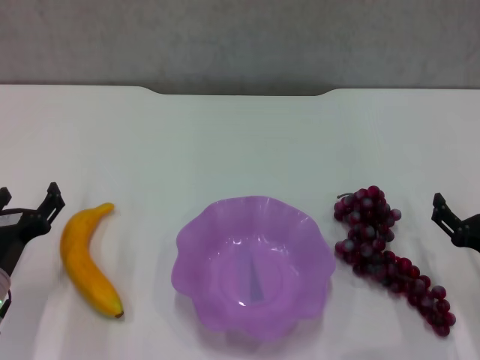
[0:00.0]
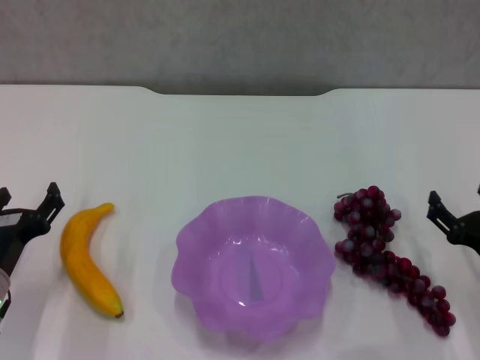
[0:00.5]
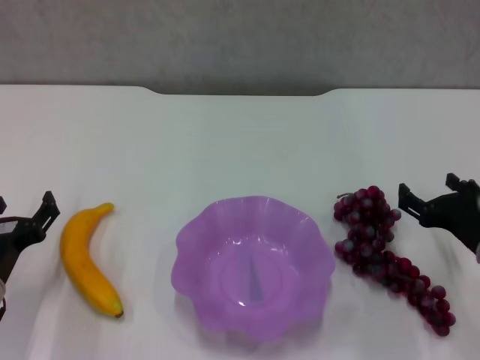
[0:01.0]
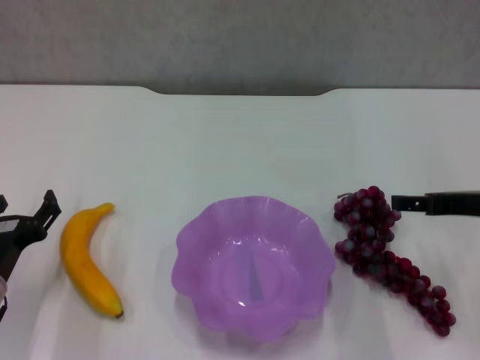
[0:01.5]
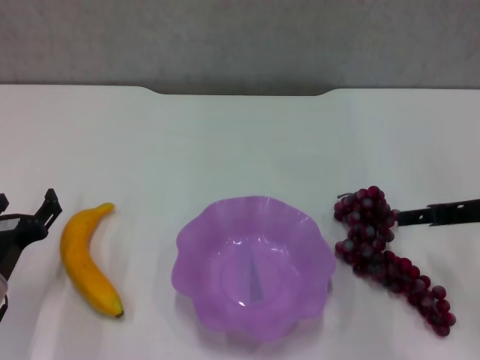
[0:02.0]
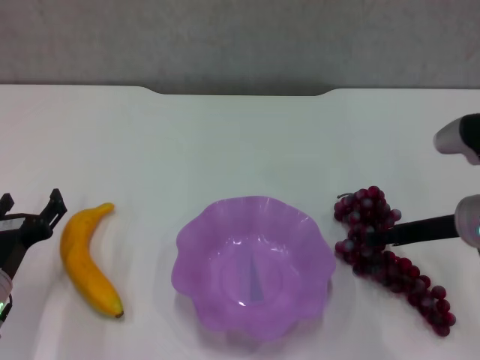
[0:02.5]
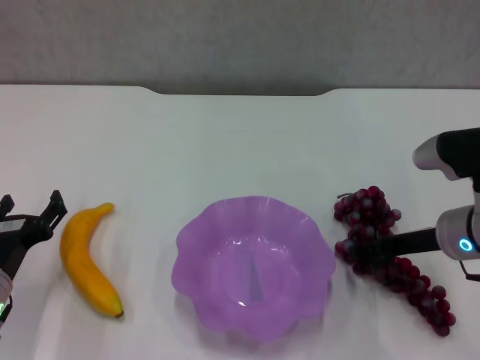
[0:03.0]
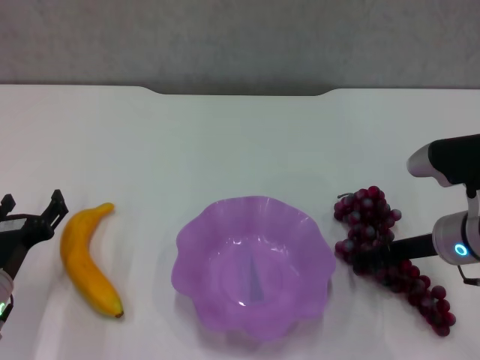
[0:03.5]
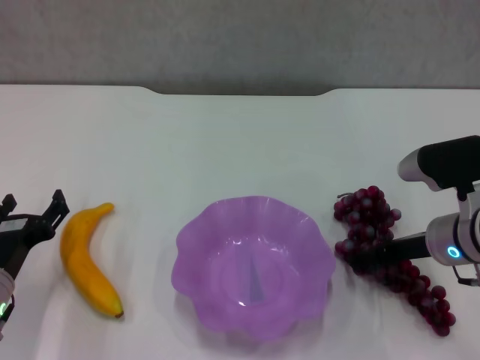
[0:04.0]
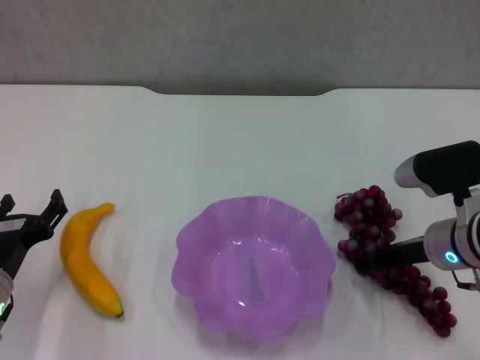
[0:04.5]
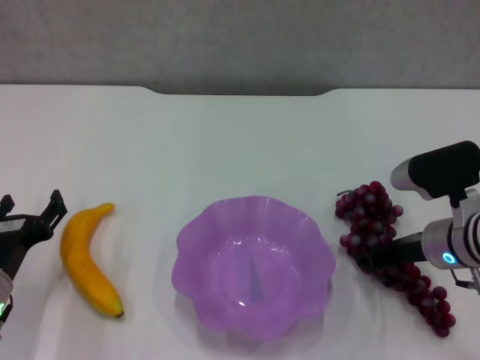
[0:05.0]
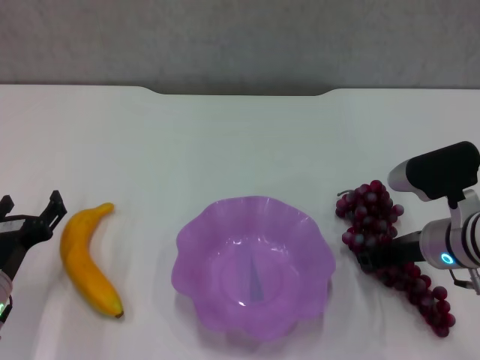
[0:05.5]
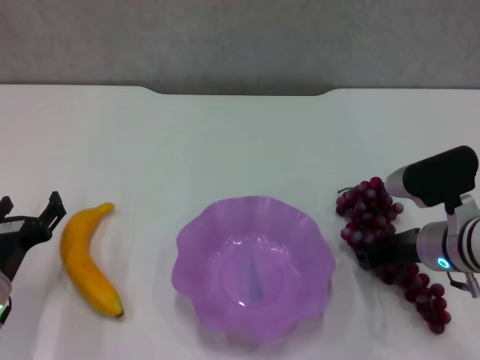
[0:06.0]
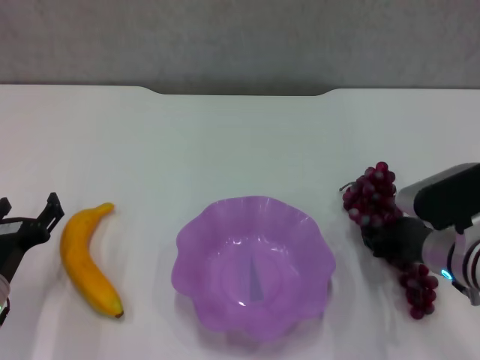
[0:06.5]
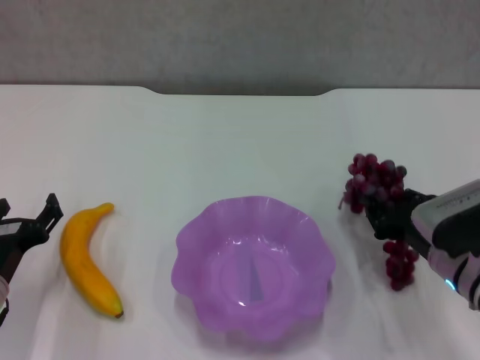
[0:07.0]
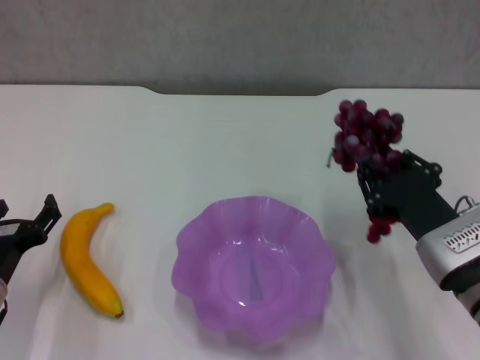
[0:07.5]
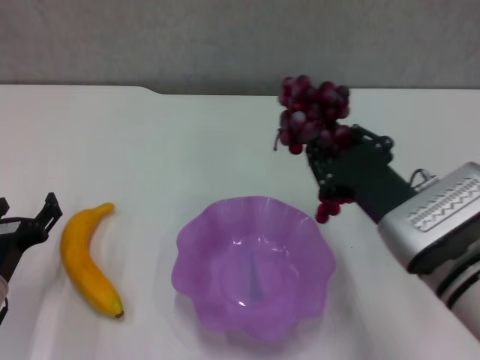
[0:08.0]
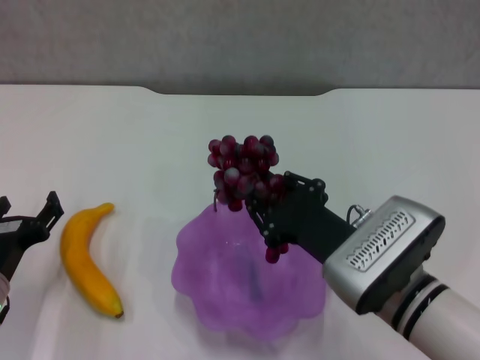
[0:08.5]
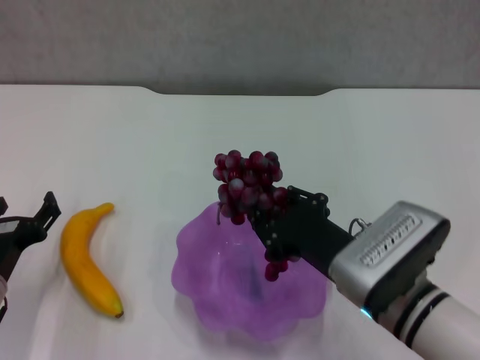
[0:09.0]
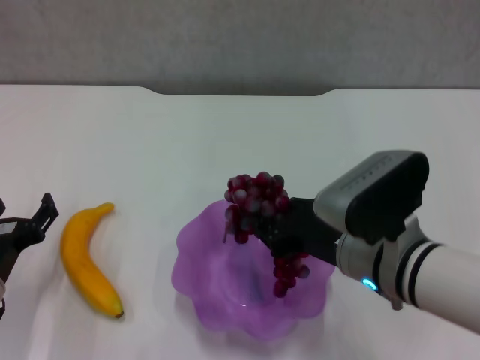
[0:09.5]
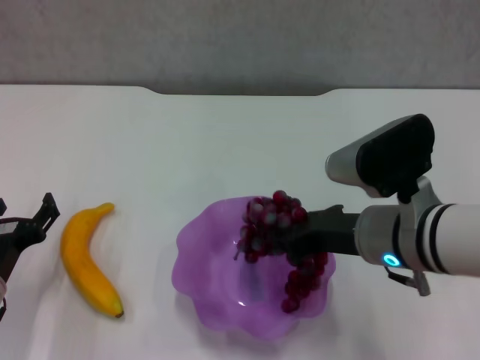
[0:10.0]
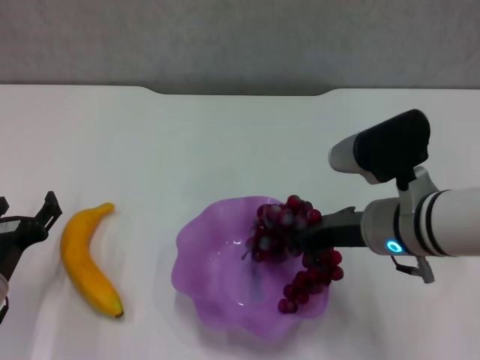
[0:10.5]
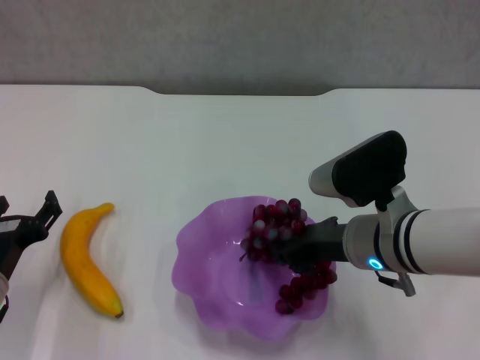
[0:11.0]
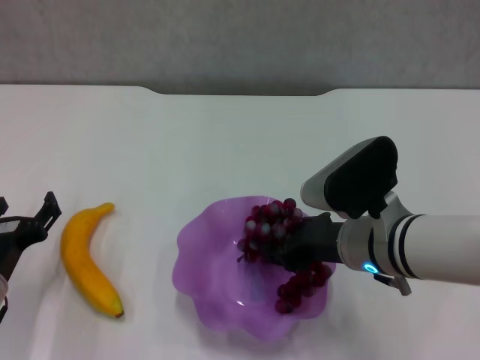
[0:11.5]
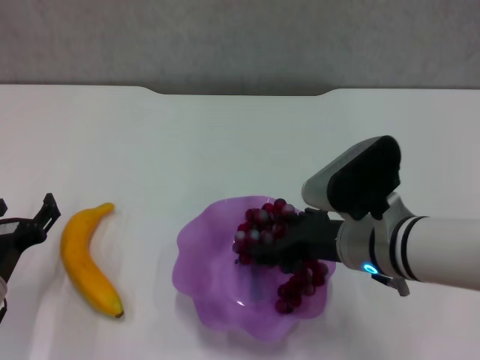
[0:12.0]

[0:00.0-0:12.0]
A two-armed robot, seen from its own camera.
Step, 0:00.0 to 0:04.5: Grasp the grape with right gripper.
0:00.0 to 0:02.0: The right gripper is displaced upward and forward by some 15 cm.
0:02.0 to 0:04.0: The right gripper shifts approximately 10 cm downward and to the left.
0:04.0 to 0:06.0: The right gripper closes.
0:06.0 to 0:08.0: The right gripper moves backward and to the left, about 10 cm.
0:10.0 to 0:12.0: The right gripper opens its fingers.

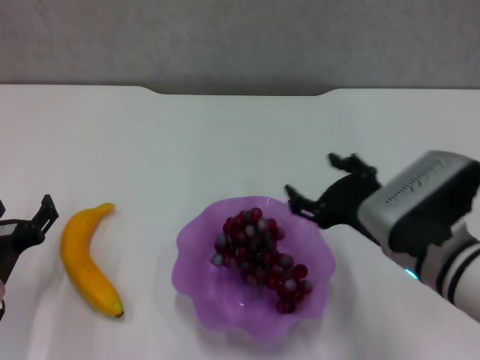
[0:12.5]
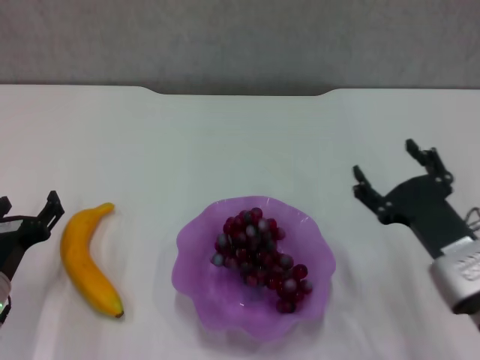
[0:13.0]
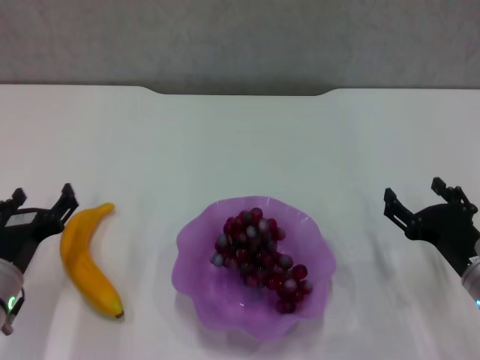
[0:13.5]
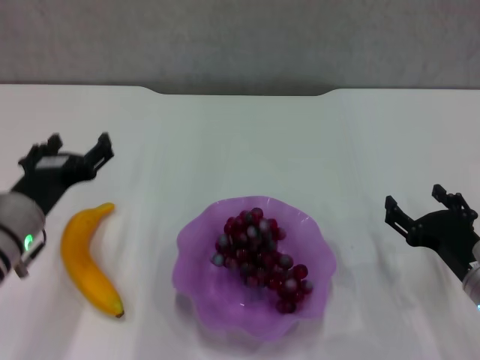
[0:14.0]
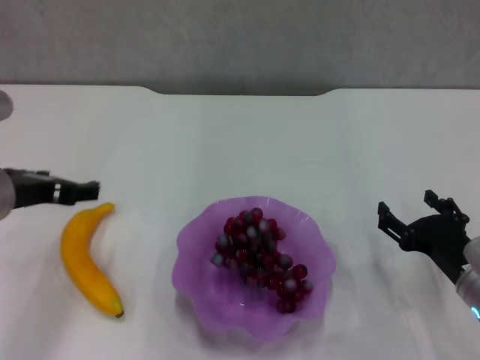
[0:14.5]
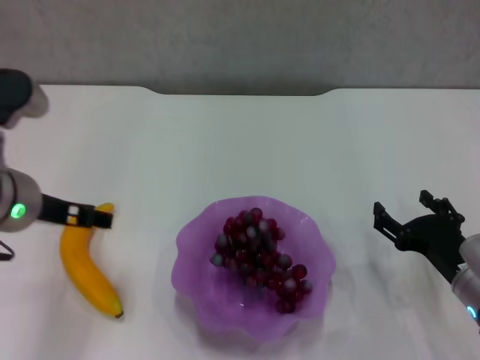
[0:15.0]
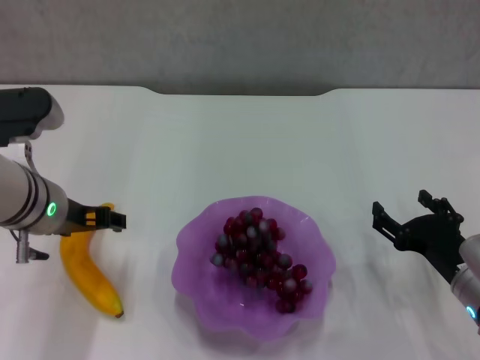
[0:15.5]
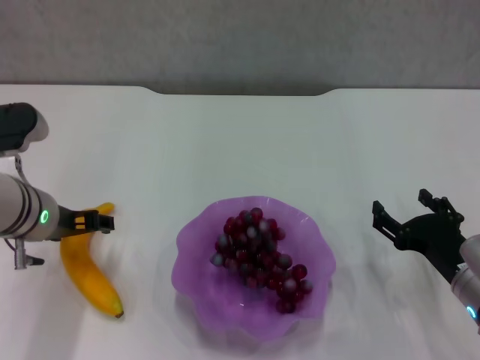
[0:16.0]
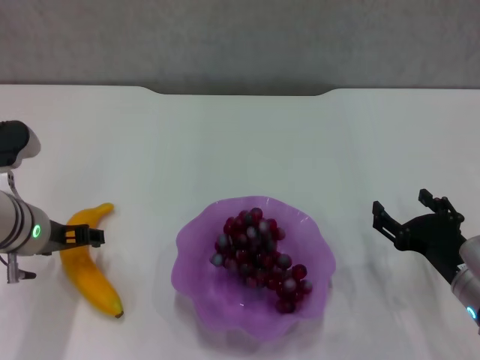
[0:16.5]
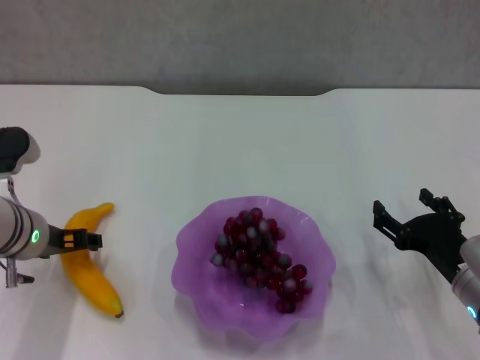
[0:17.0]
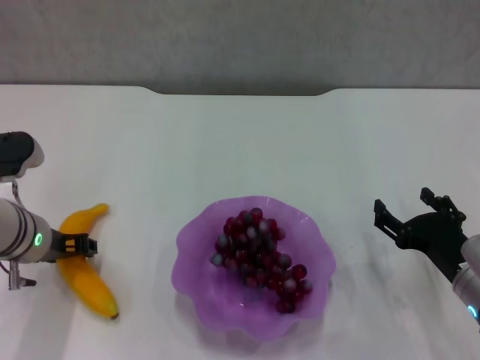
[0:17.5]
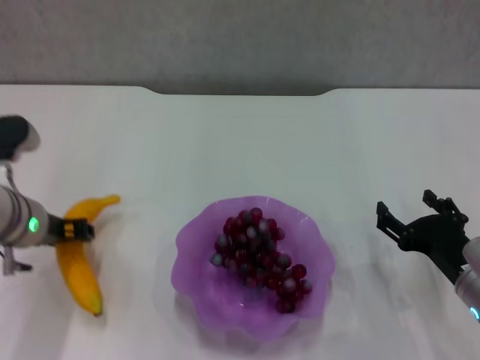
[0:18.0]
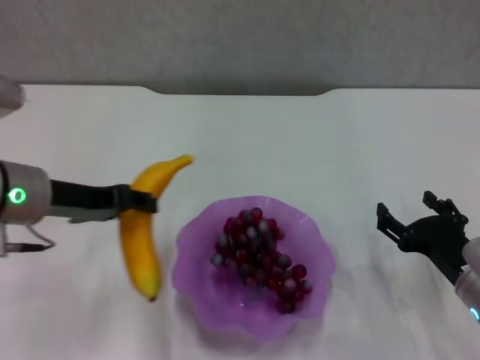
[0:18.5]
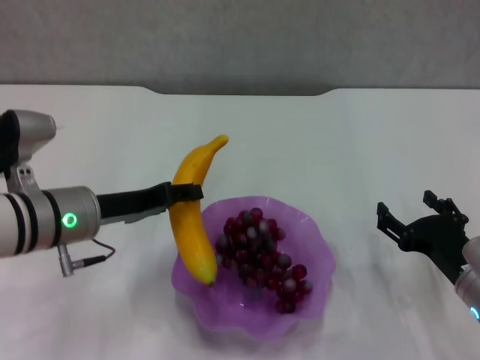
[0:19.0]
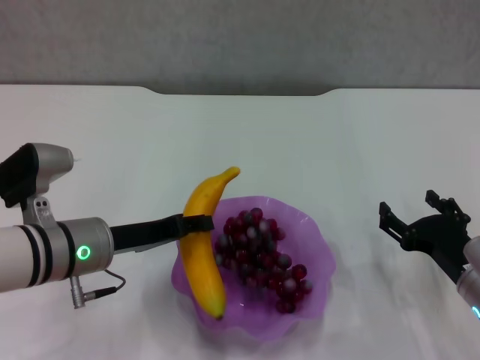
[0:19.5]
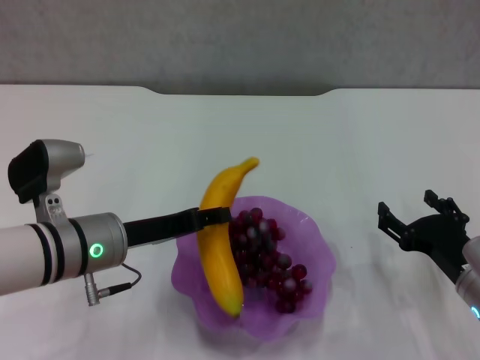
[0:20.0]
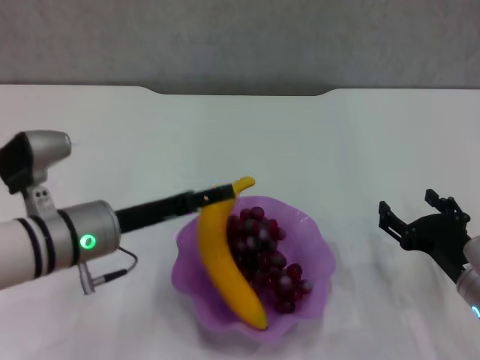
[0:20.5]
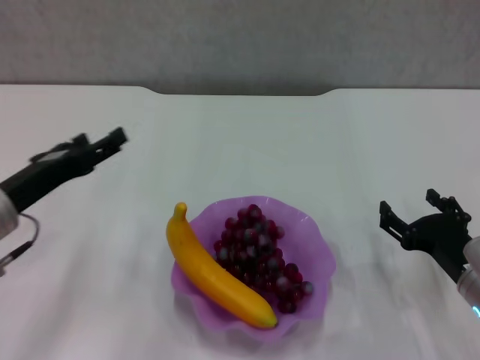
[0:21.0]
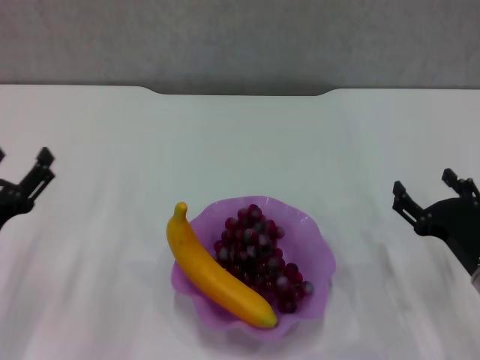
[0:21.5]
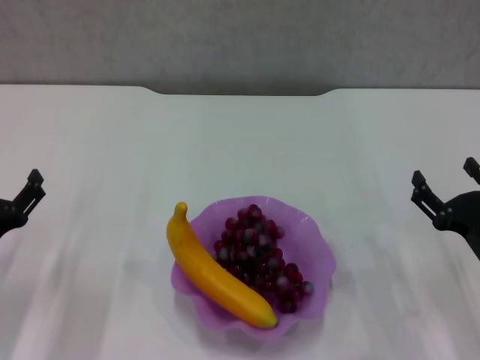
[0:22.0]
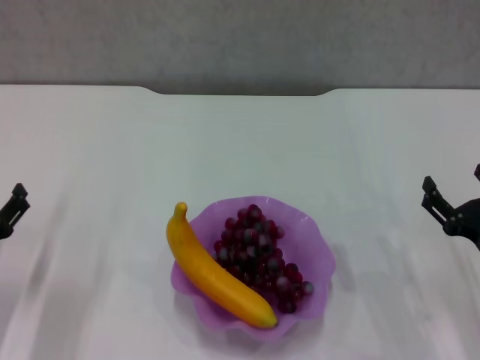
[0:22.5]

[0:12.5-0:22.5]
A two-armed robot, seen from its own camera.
Step, 0:12.5 to 0:17.5: Grasp the banana with left gripper.
Step, 0:18.0 to 0:20.5: Place the banana in the purple plate with left gripper.
0:12.5 to 0:14.5: The left gripper is displaced upward by approximately 15 cm. Meanwhile the right gripper travels downward and to the right by about 15 cm.
0:14.5 to 0:16.5: The left gripper heads downward, covering about 5 cm.
0:16.5 to 0:18.5: The left gripper moves upward, about 5 cm, and closes.
0:18.5 to 0:20.5: The left gripper heads downward and to the right, covering roughly 10 cm, and opens.
0:20.5 to 0:22.5: The left gripper travels to the left, downward and backward by roughly 15 cm.

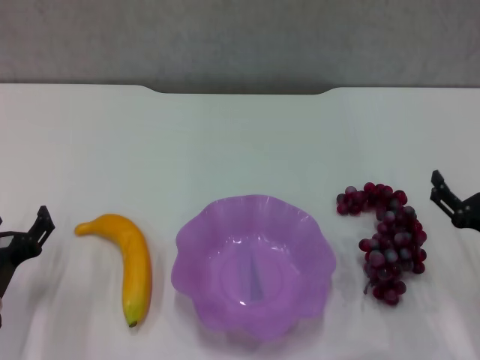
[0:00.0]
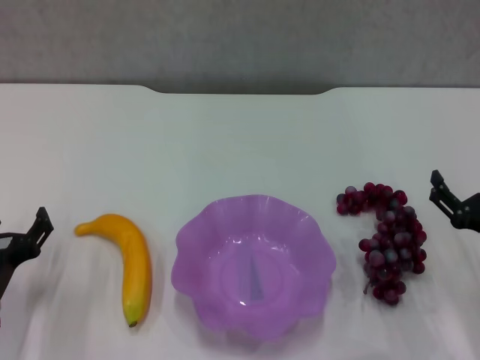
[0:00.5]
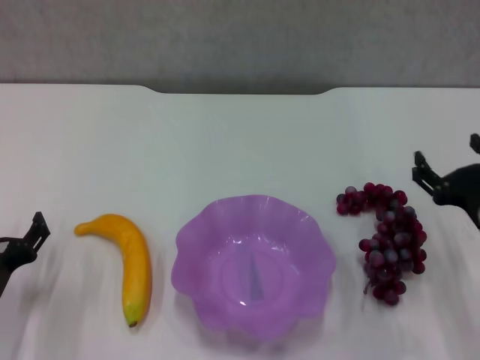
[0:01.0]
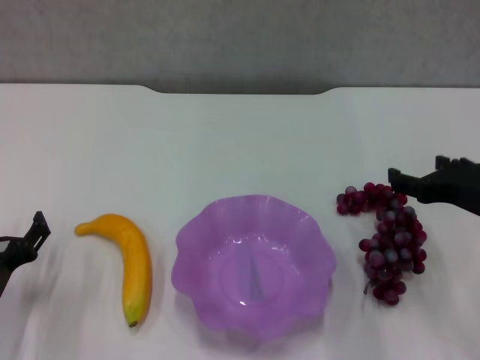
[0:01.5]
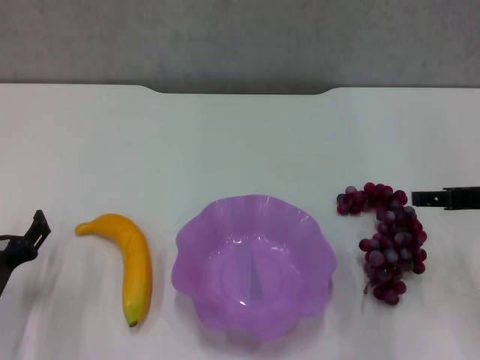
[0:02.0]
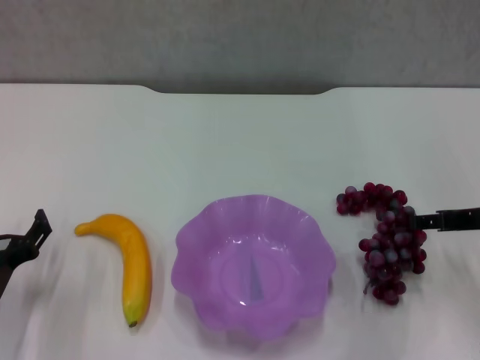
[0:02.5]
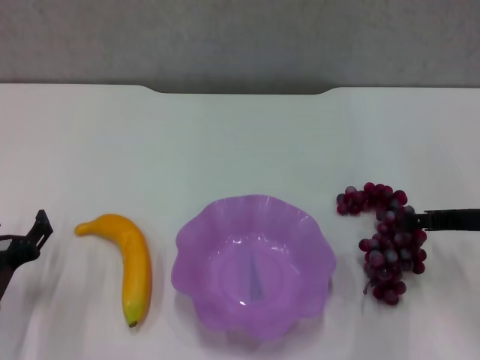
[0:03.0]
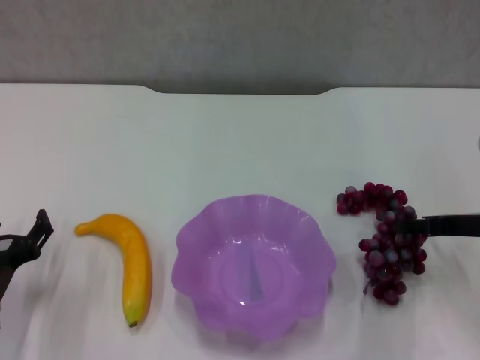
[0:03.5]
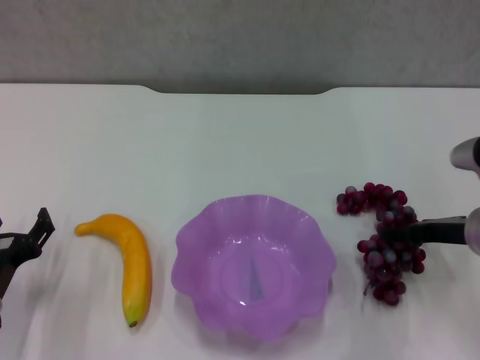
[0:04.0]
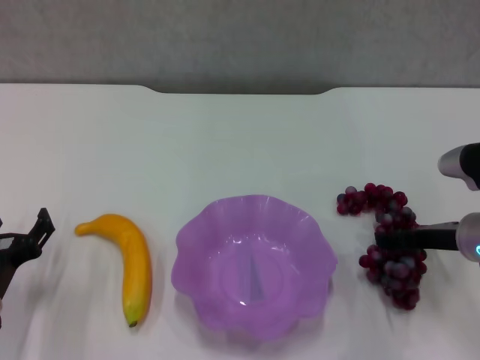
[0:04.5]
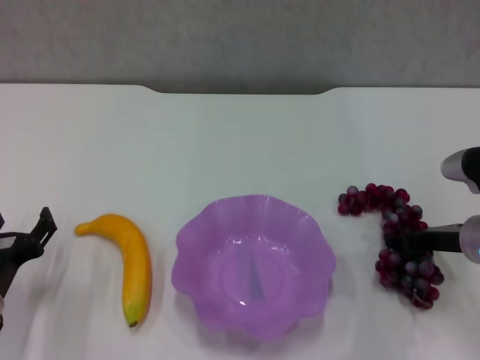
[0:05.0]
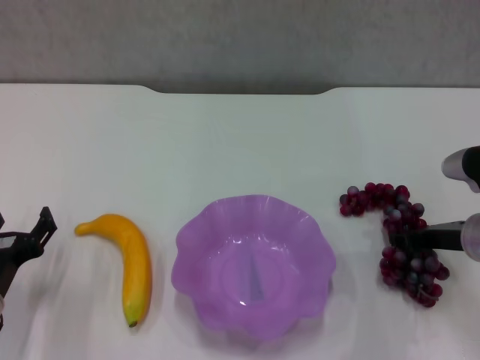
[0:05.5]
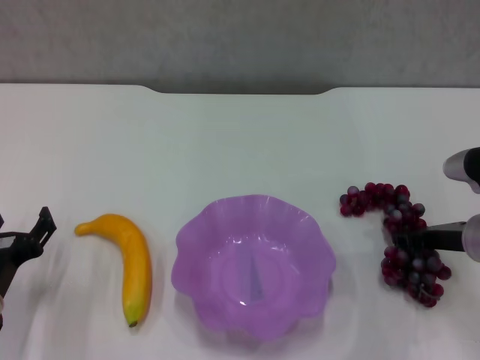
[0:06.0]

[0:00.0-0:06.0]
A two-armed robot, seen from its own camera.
Step, 0:00.0 to 0:04.5: Grasp the grape with right gripper.
0:00.0 to 0:02.0: The right gripper travels upward and forward by about 15 cm.
0:02.0 to 0:04.0: The right gripper goes roughly 10 cm downward.
0:04.0 to 0:06.0: The right gripper closes its fingers.
